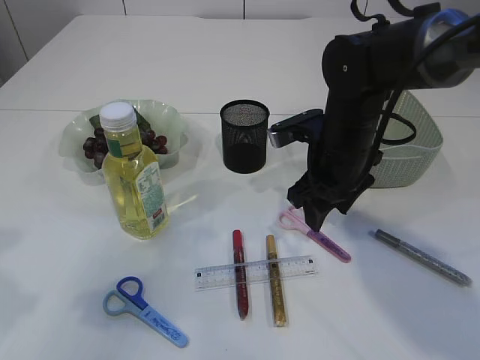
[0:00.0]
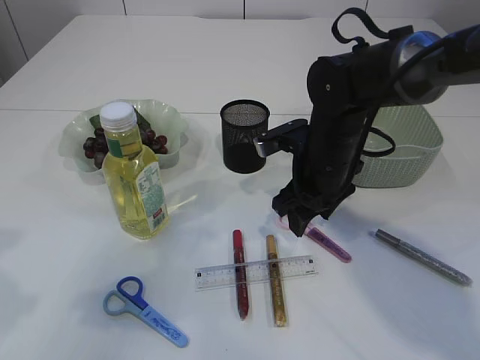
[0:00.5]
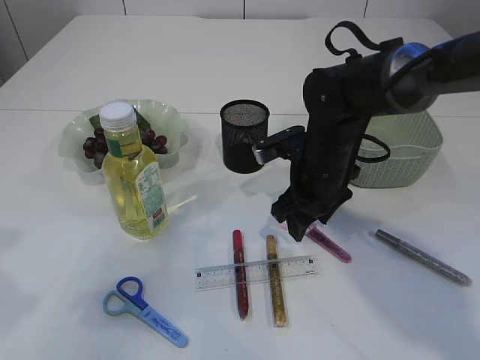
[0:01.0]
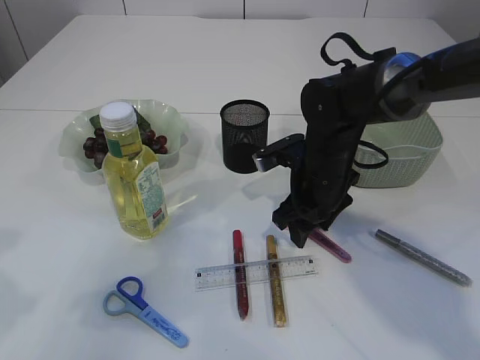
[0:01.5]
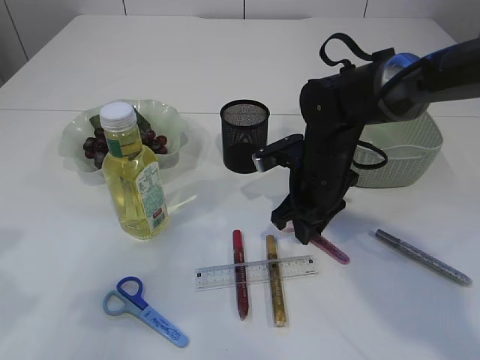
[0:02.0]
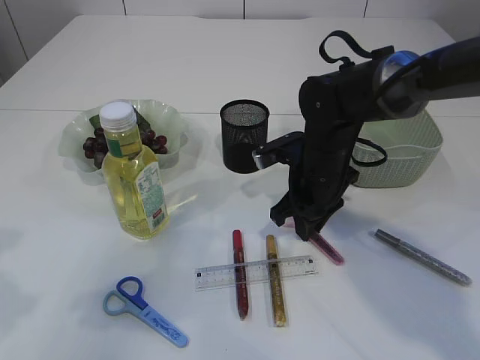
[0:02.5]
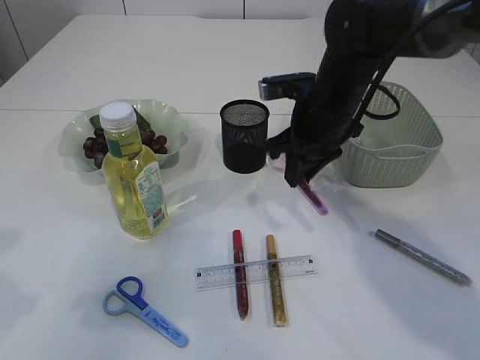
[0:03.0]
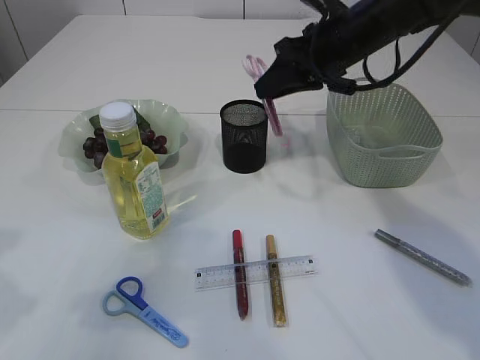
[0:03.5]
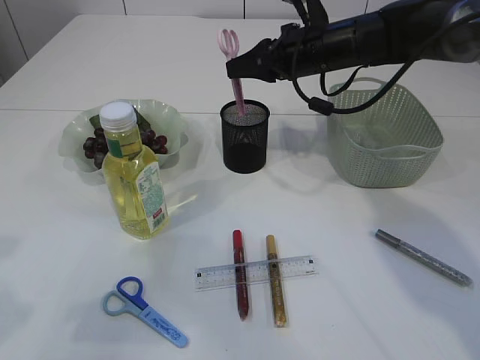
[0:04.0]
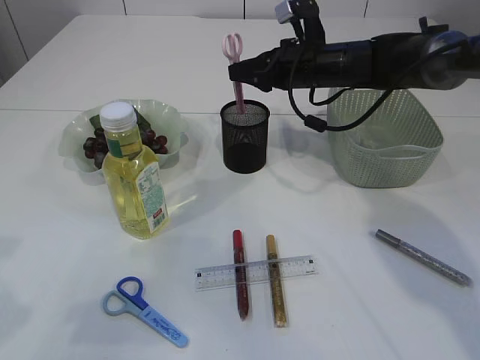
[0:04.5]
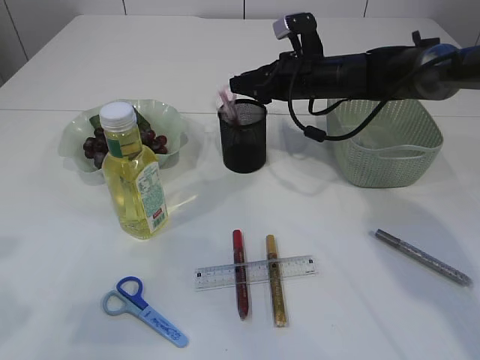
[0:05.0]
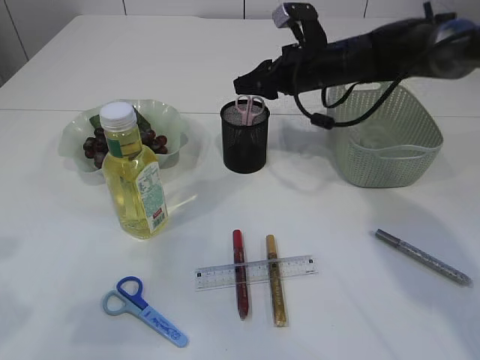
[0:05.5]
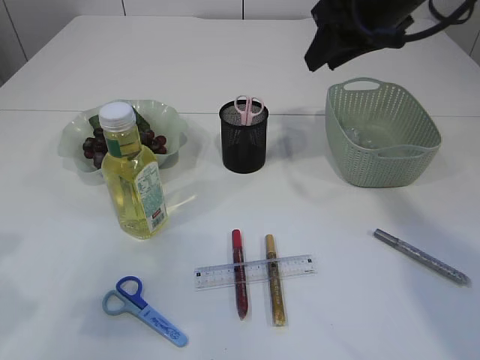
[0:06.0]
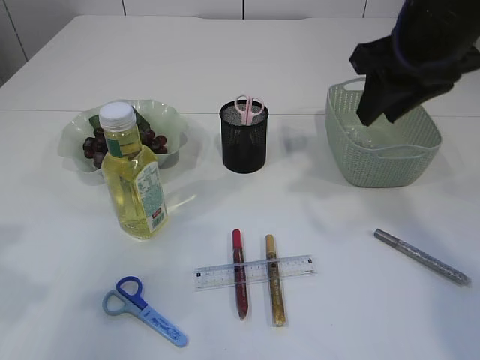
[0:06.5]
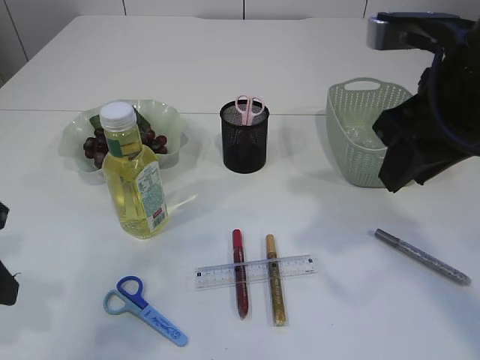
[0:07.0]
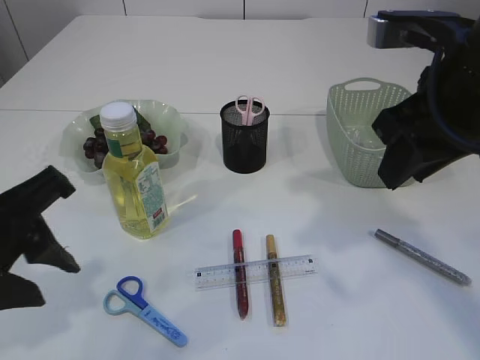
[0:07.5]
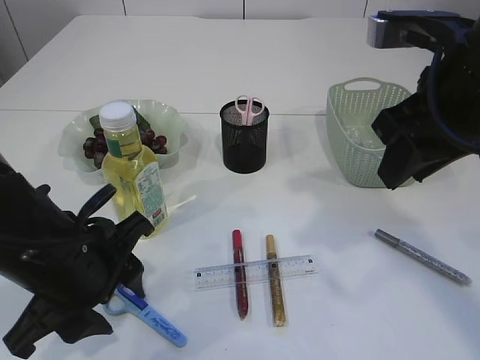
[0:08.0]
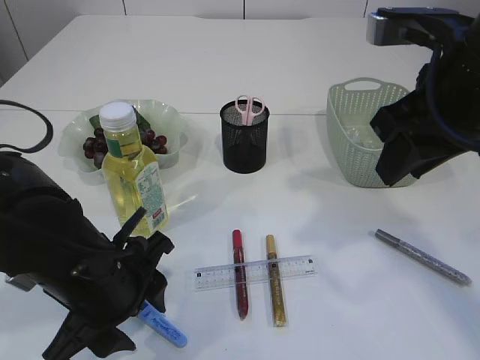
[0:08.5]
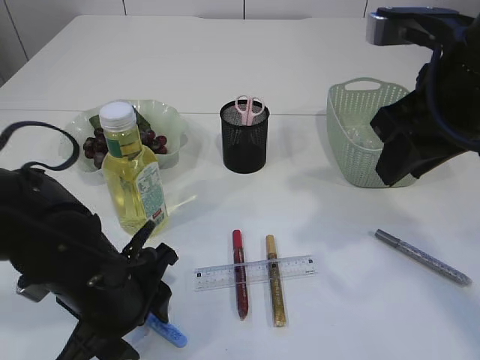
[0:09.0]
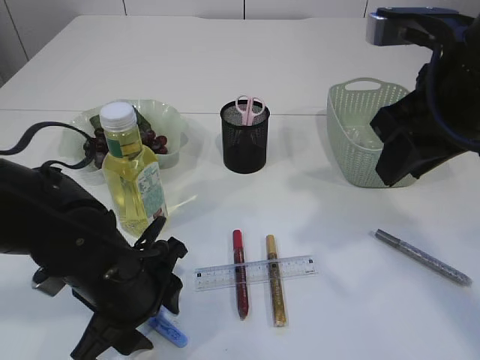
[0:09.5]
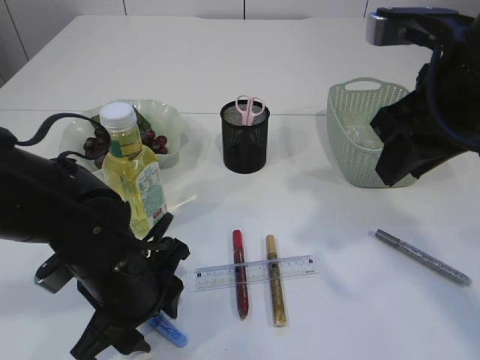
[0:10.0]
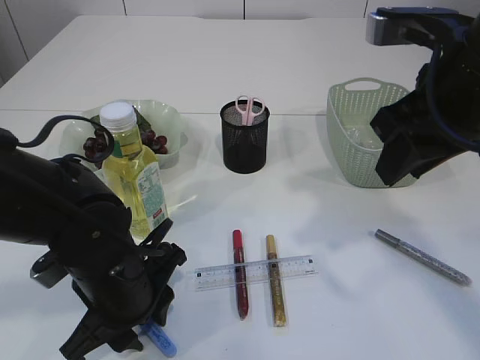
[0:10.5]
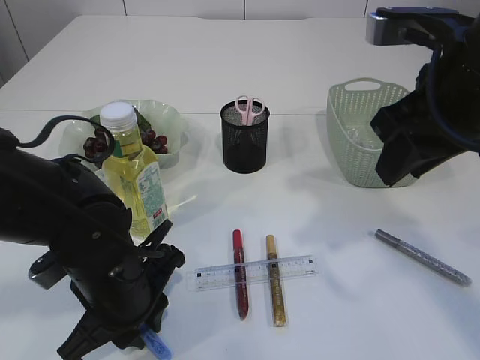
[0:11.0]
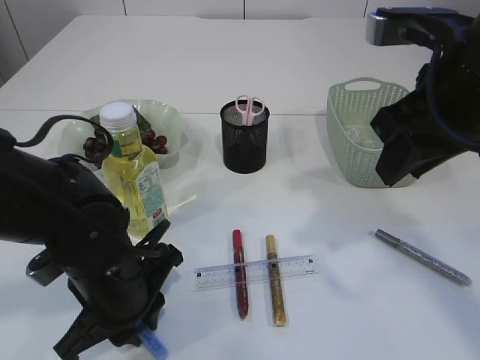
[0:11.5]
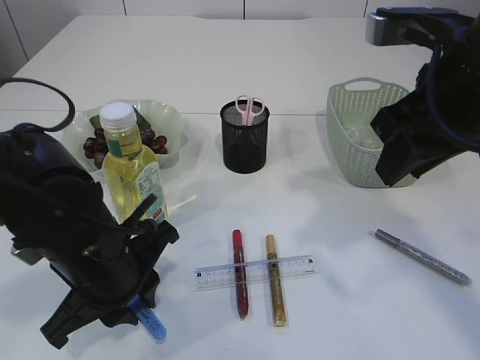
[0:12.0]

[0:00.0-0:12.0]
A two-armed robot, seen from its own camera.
Step, 0:00.0 to 0:02.5: pick up the pink scissors.
Step, 0:03.0 to 0:05.5: Place the pink scissors into the pen holder.
0:00.0 to 0:02.0: The right gripper changes place by about 5 cm, and closes its fingers.
0:02.0 to 0:04.0: The right gripper heads upward and forward, covering about 15 cm.
0:04.0 to 0:06.0: The right gripper is displaced upward and backward by approximately 10 cm.
0:06.0 to 0:08.0: The right gripper travels backward by roughly 15 cm. Meanwhile the left gripper is displaced to the right and downward by about 15 cm.
0:08.0 to 0:10.0: The left gripper travels downward by about 5 cm.
0:10.0 to 0:12.0: The left gripper closes.

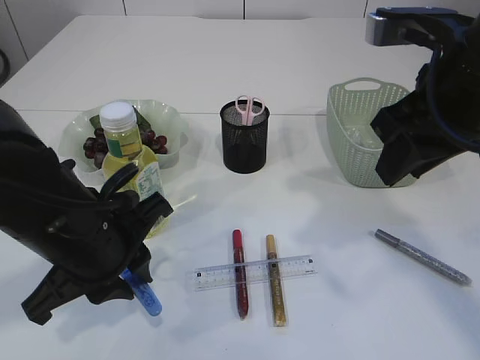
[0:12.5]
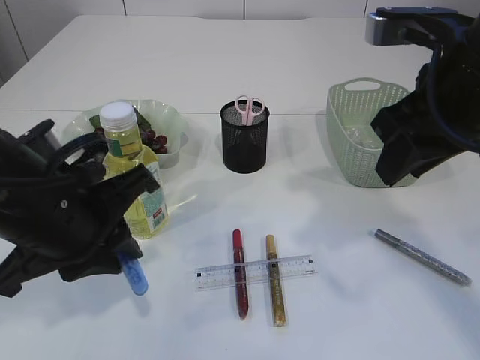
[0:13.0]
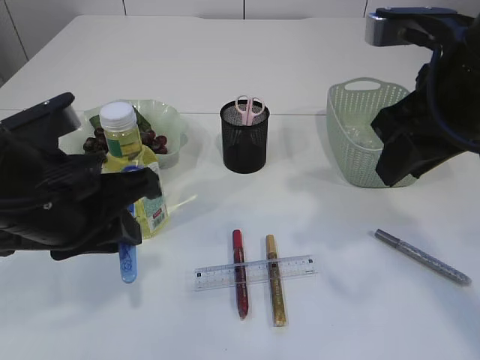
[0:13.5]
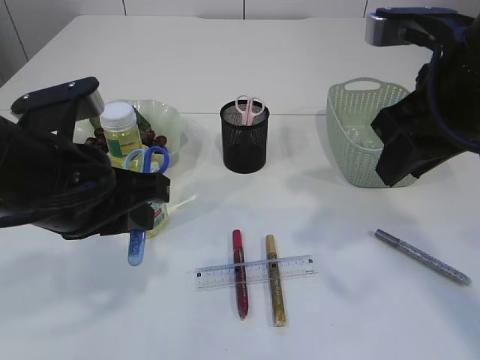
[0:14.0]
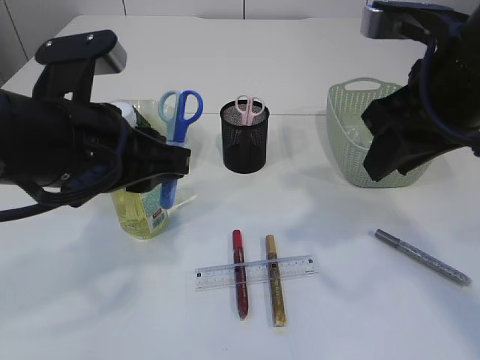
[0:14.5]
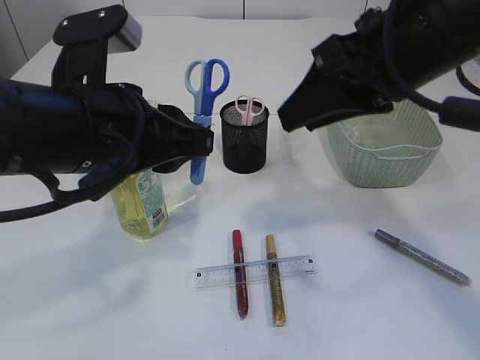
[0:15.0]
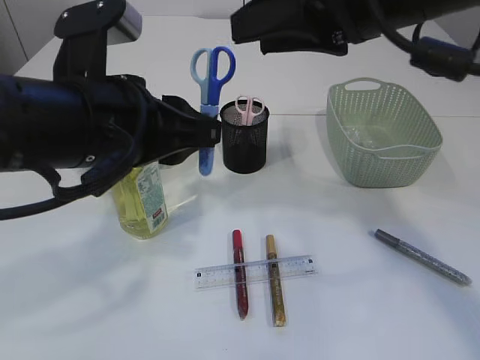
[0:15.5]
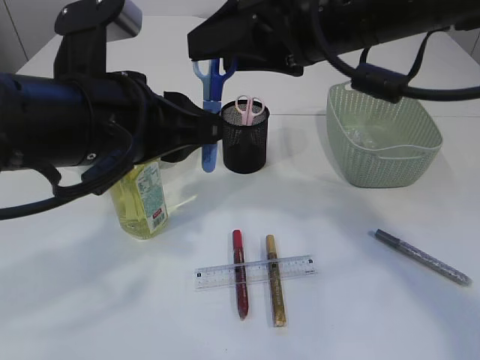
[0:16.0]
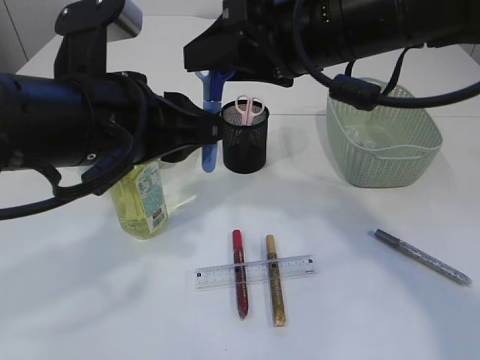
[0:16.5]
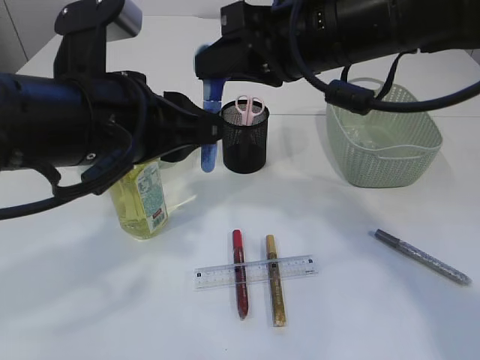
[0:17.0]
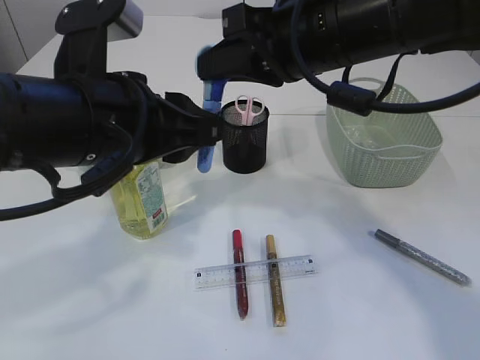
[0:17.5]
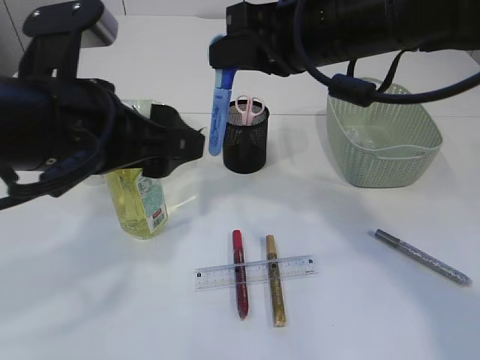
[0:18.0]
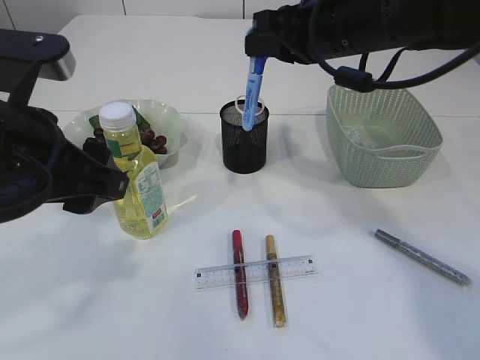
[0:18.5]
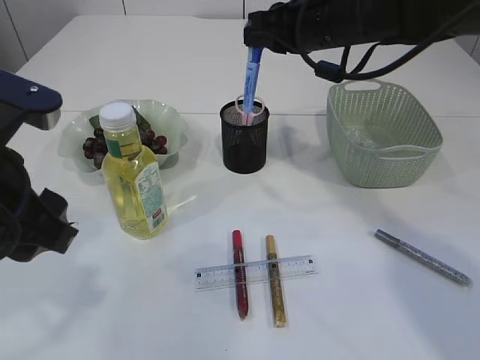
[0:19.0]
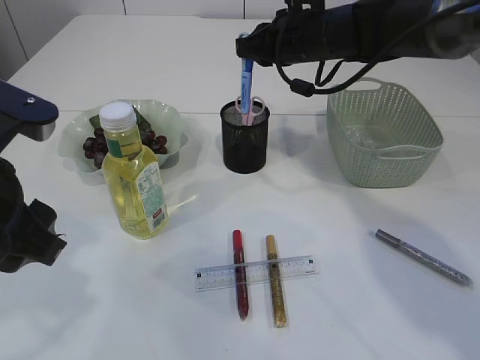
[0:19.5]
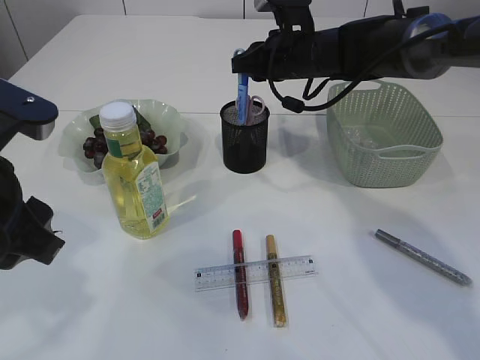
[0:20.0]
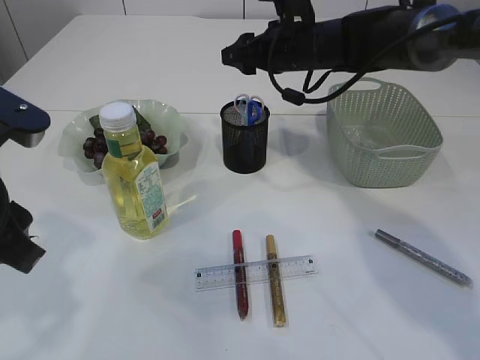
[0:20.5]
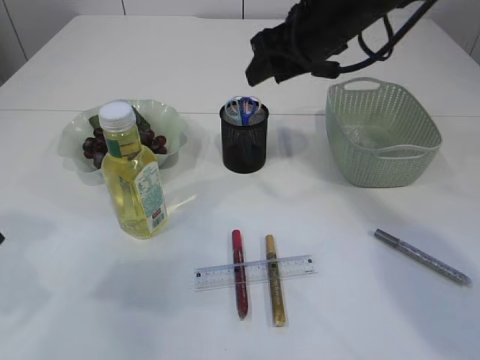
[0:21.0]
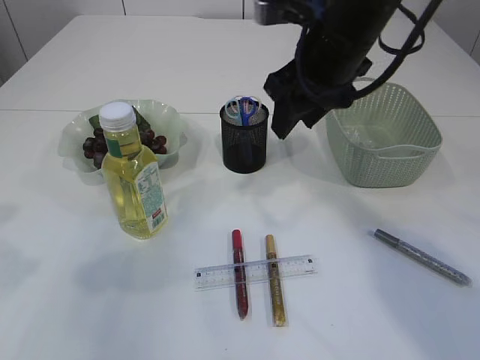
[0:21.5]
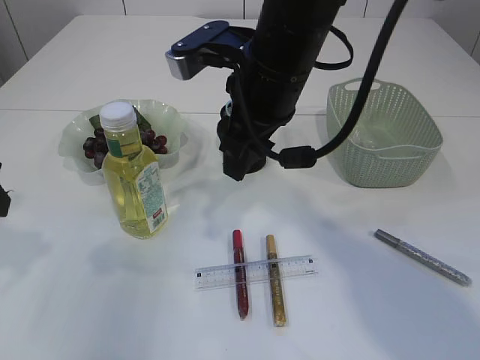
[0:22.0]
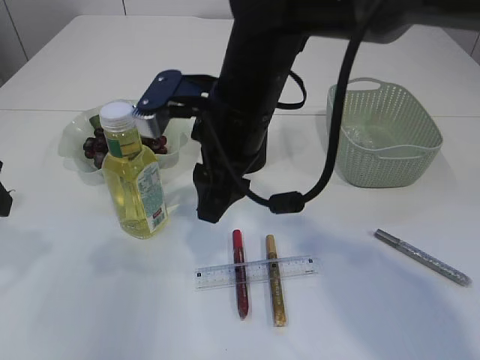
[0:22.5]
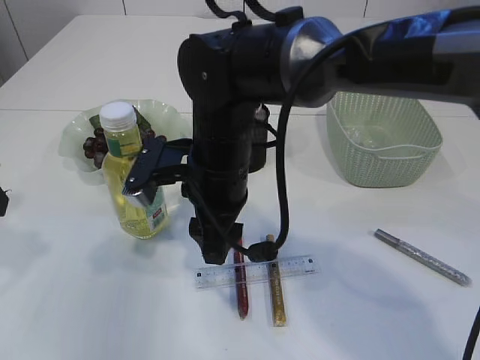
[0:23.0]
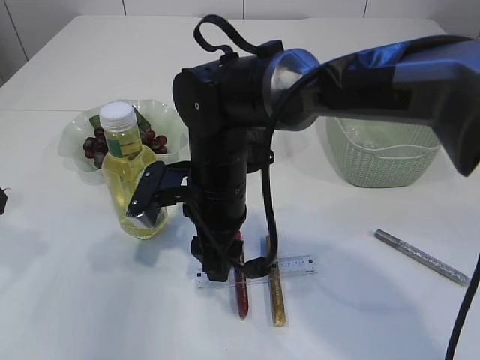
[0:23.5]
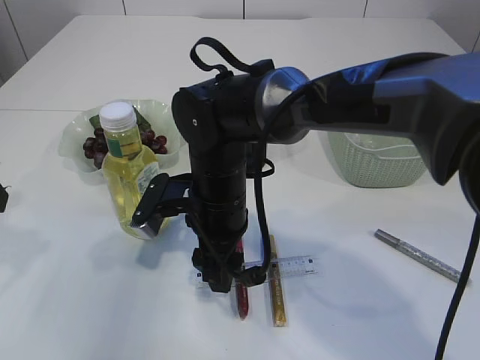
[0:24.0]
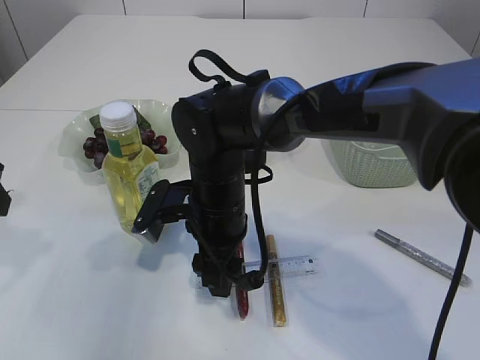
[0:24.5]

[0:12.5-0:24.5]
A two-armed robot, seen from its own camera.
Step, 0:13.0 to 0:18.0: Hand over the blue scissors.
Step, 0:18.5 to 0:20.5: Place the blue scissors into the pen holder.
0:12.5 to 0:14.5: The left gripper shifts some 10 cm upward.
0:14.5 to 0:16.5: The right gripper moves to the left, about 10 cm.
0:16.5 to 0:18.5: The left gripper is displaced to the left by approximately 5 cm, and opens, while the right gripper is displaced forward by about 5 cm, and closes its fingers.
0:18.5 to 0:20.5: The right gripper heads forward and downward, covering about 15 cm, and opens up.
0:20.5 to 0:22.5: The left gripper travels to the left by approximately 10 cm. The right gripper travels backward and to the left by some 20 cm.
0:22.5 to 0:24.5: The right gripper moves downward, roughly 10 cm.

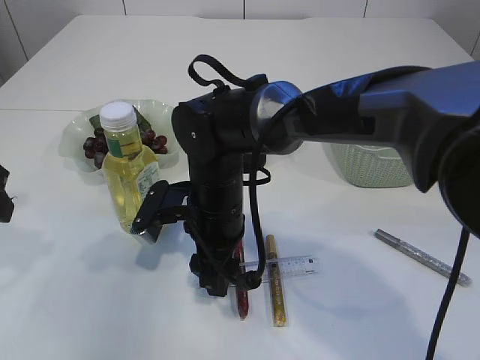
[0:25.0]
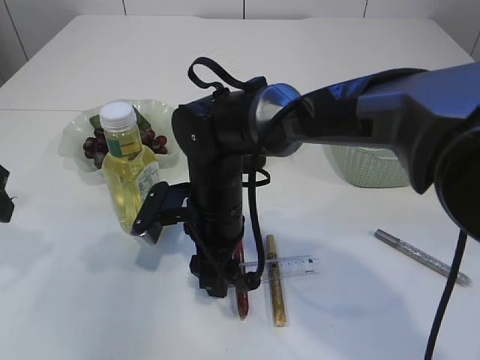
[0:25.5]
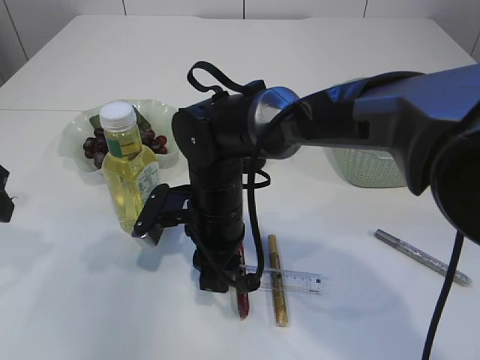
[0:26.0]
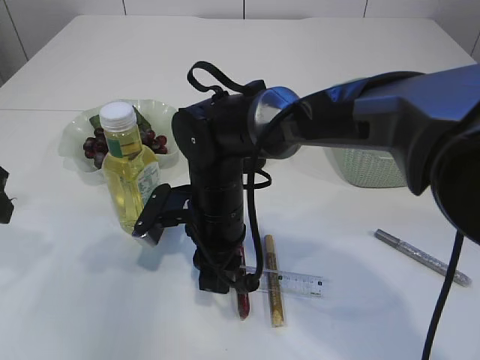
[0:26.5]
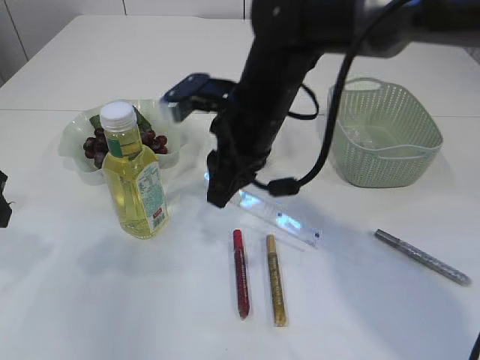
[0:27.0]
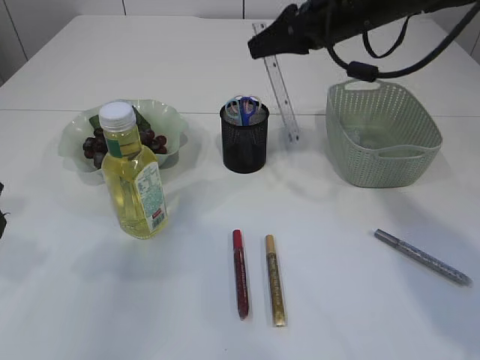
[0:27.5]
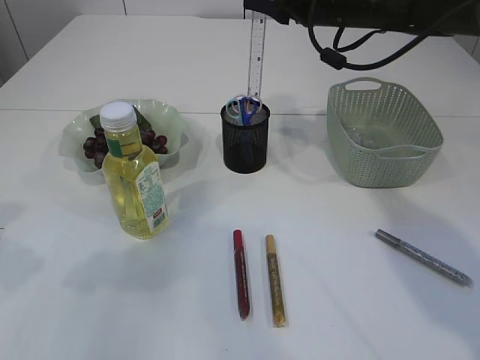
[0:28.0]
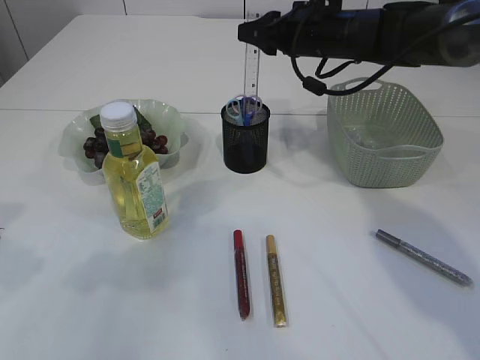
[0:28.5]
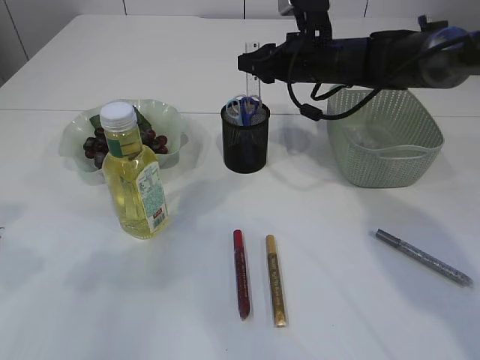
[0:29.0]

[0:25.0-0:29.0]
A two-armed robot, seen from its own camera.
0:25.0 to 0:27.0: The right gripper is displaced upward by roughly 10 cm, and closes its fingers.
0:27.0 to 0:29.0: The right gripper moves forward and to the right, roughly 20 cm.
